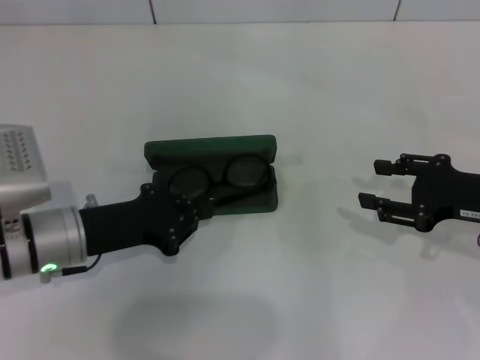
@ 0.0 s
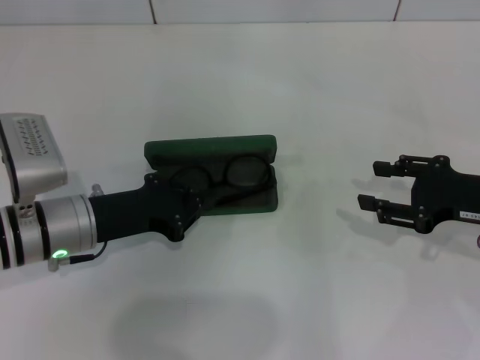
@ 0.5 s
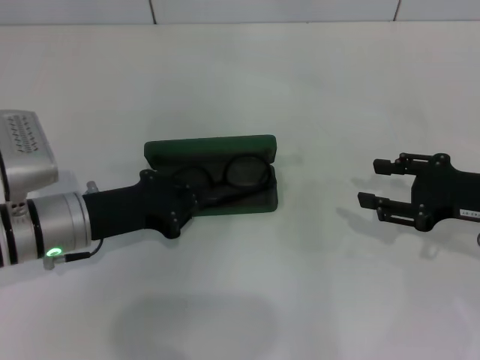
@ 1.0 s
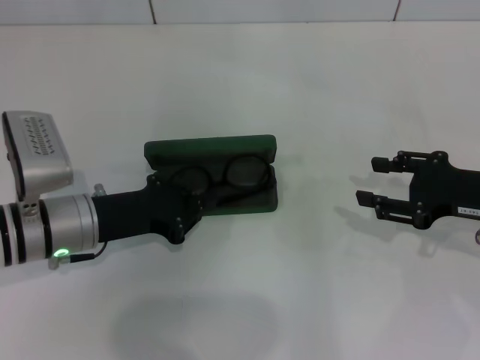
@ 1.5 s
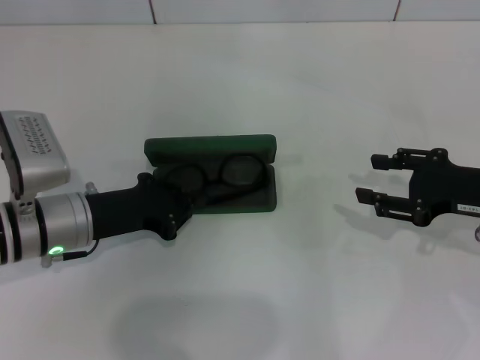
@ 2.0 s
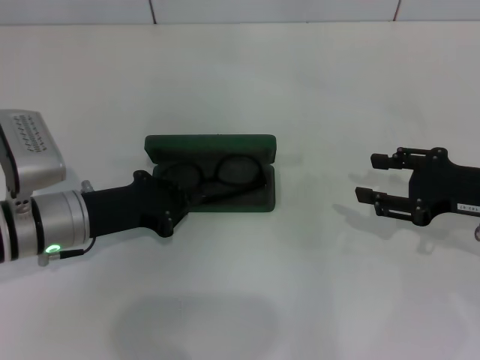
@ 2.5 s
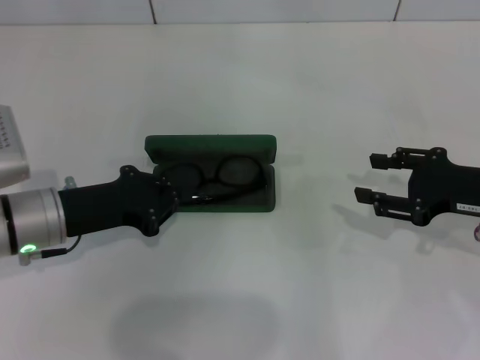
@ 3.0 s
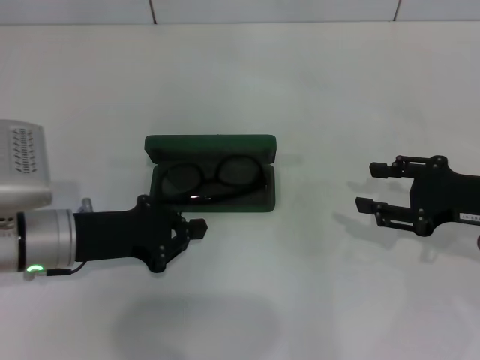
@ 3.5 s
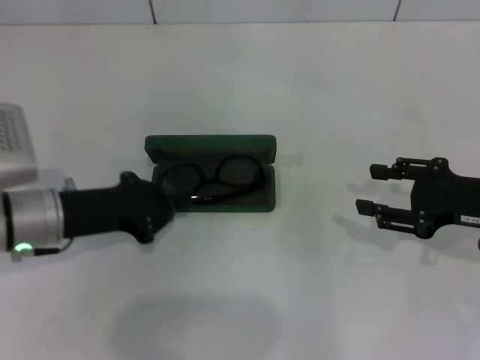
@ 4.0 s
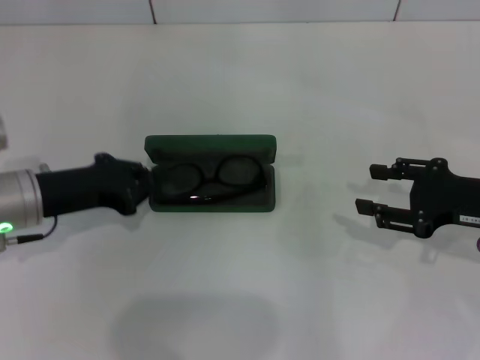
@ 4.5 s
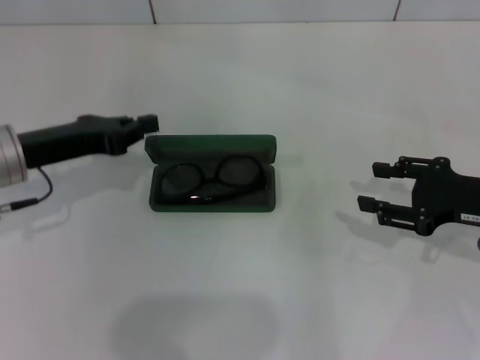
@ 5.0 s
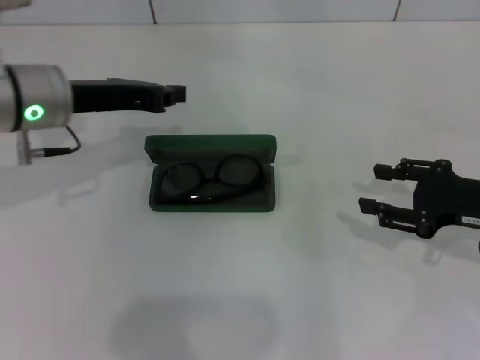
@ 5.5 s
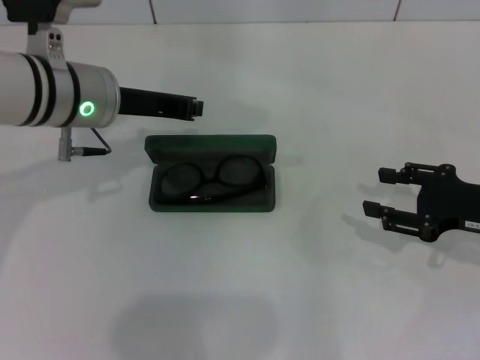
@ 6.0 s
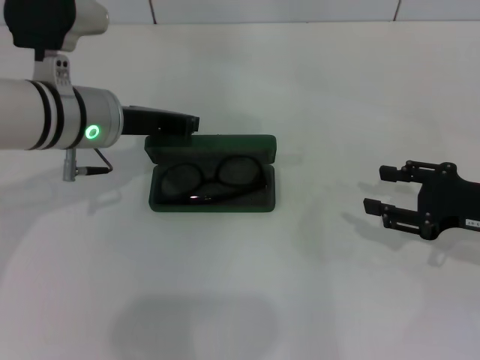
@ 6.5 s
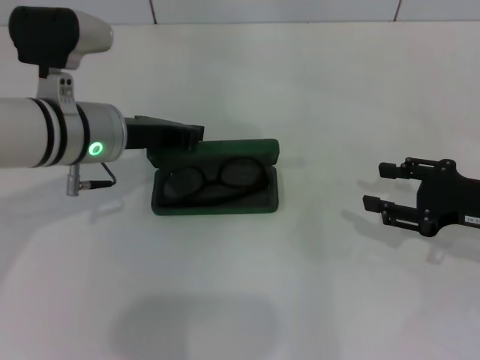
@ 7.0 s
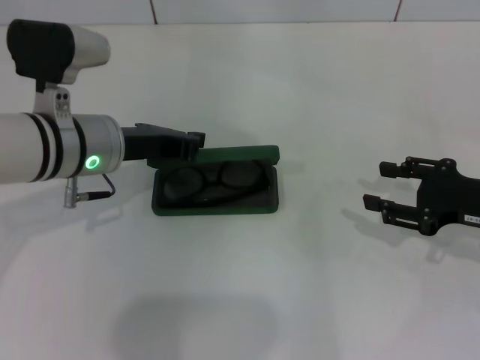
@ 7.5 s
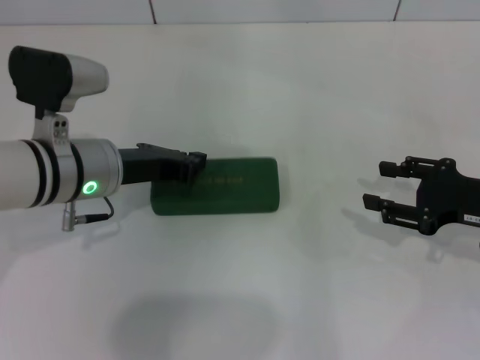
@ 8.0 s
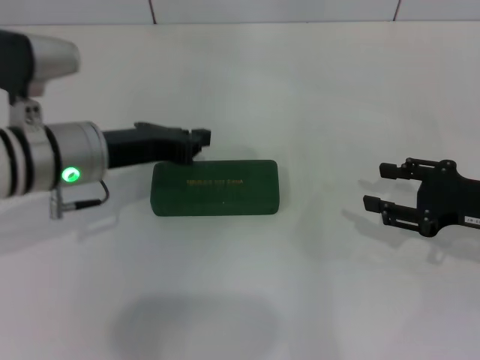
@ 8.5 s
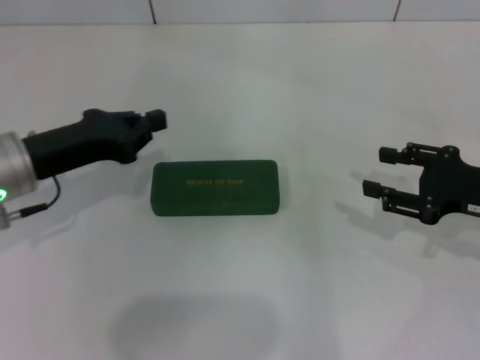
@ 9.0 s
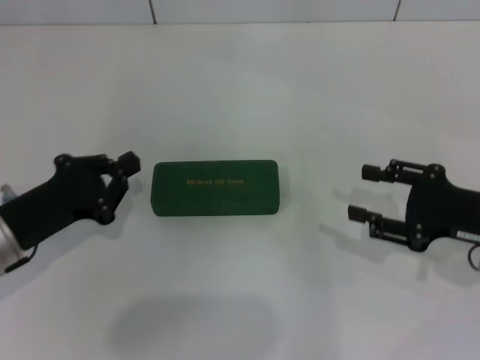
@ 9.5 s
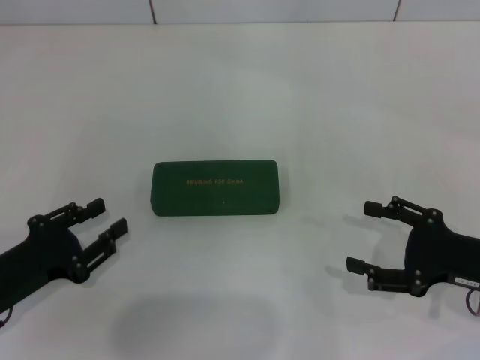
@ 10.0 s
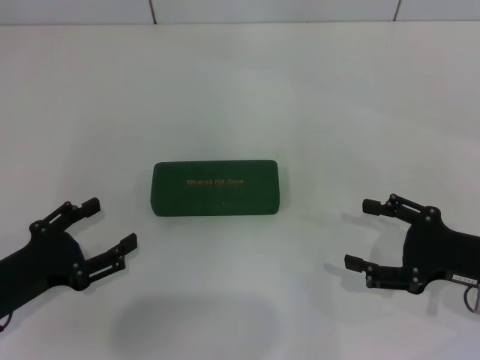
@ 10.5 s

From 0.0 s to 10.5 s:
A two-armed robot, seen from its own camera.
Step, from 0.0 s to 8.0 s: Close the glasses case with your left hand.
From 0.0 s to 4.0 s: There are only small adjustments of the grippers.
From 4.0 s to 6.5 s: The left gripper goes some 10 cm upward, to the right and forward.
From 6.5 s to 8.5 s: The grippers move only a little.
From 8.5 s to 10.5 s: The left gripper goes roughly 20 cm backward, to the left and downward, and opens up, while the right gripper ends up roughly 5 cm from where it was.

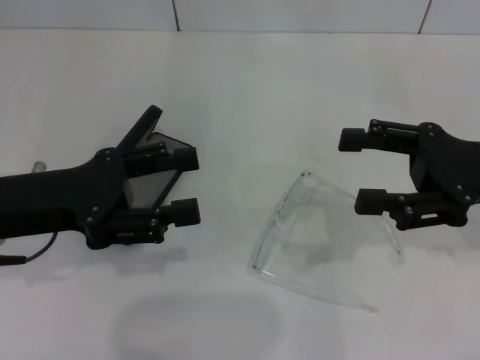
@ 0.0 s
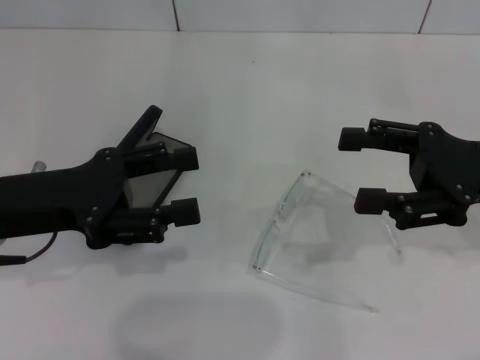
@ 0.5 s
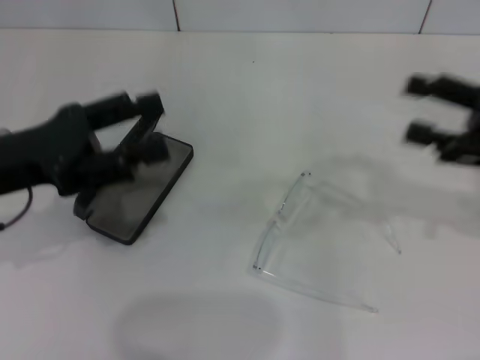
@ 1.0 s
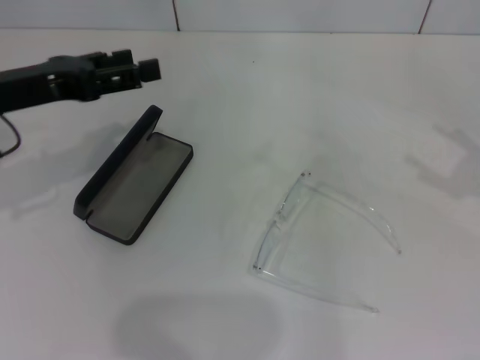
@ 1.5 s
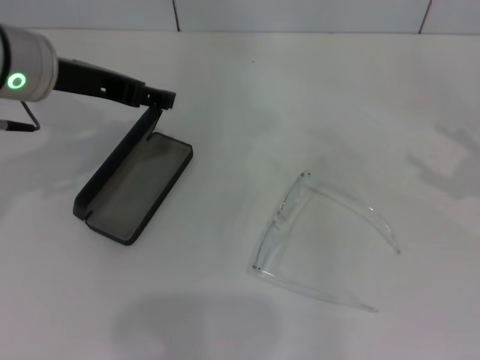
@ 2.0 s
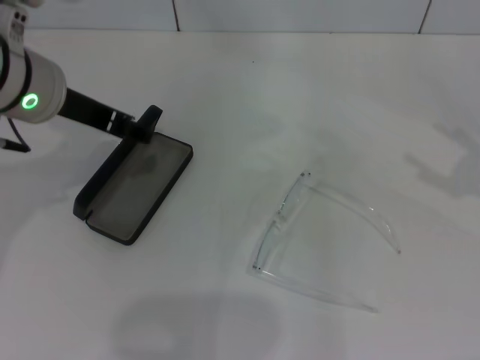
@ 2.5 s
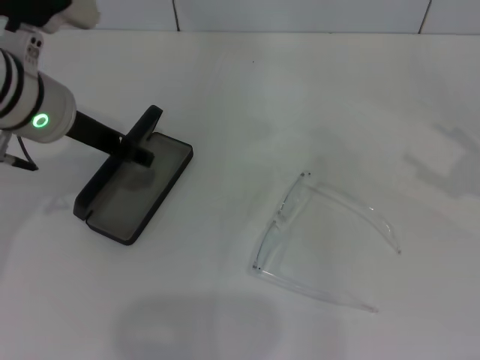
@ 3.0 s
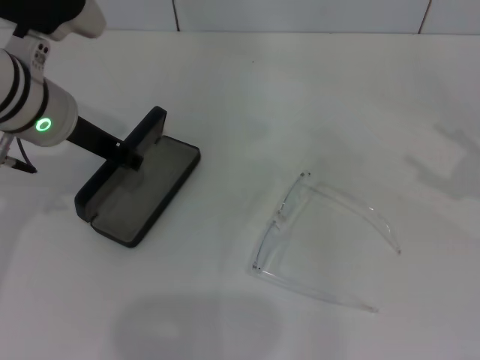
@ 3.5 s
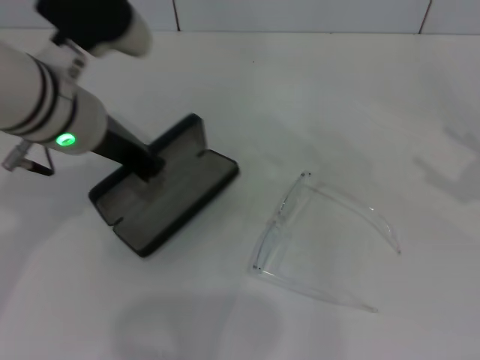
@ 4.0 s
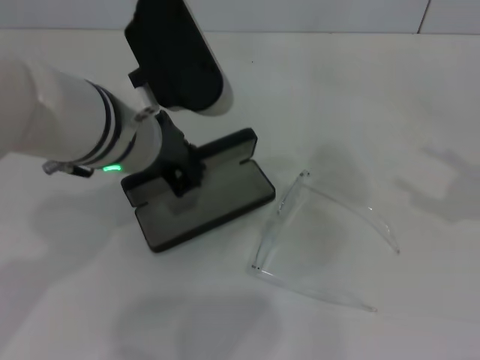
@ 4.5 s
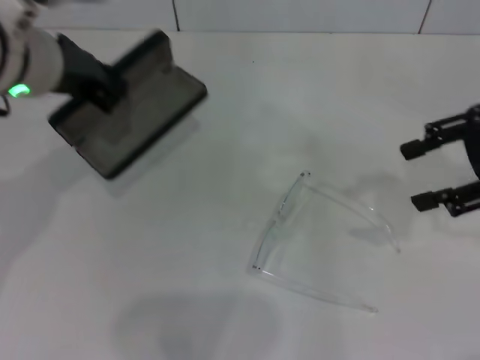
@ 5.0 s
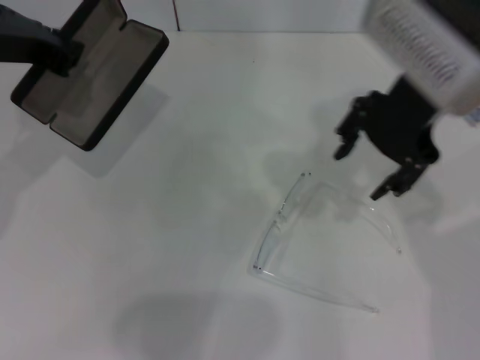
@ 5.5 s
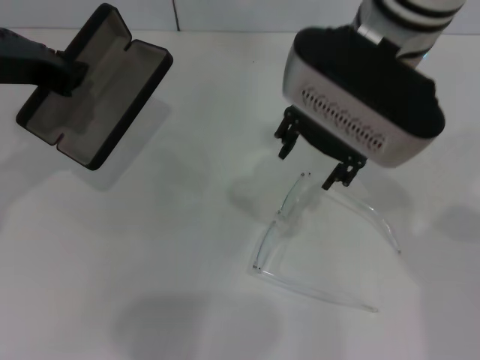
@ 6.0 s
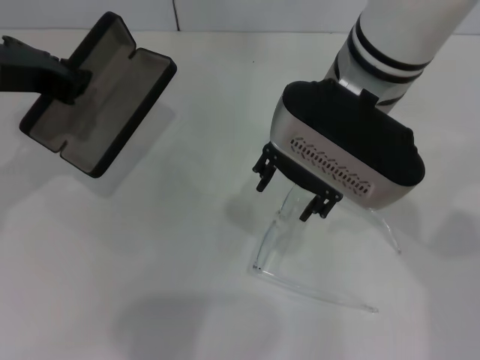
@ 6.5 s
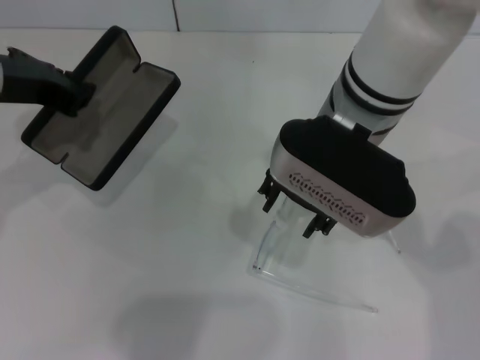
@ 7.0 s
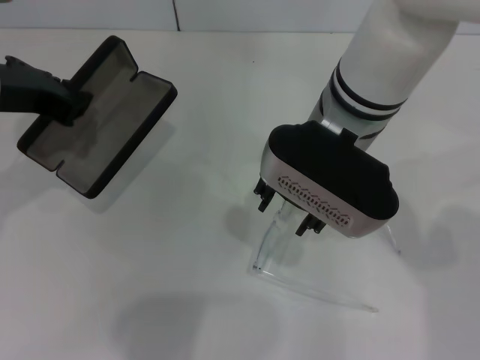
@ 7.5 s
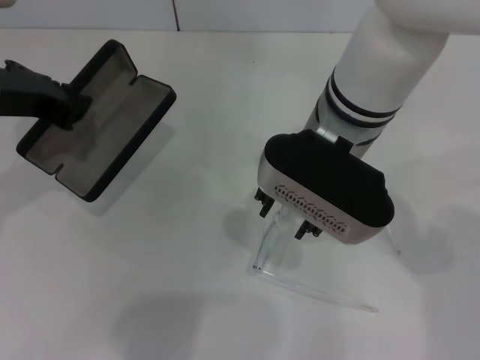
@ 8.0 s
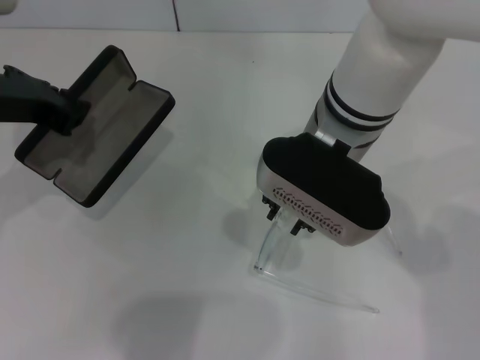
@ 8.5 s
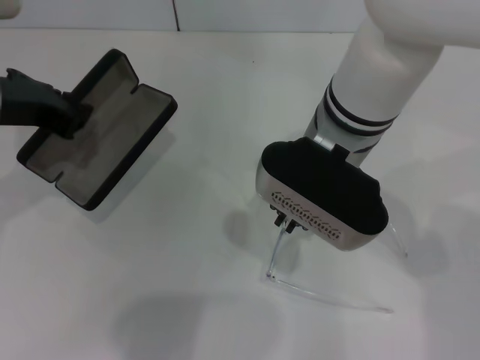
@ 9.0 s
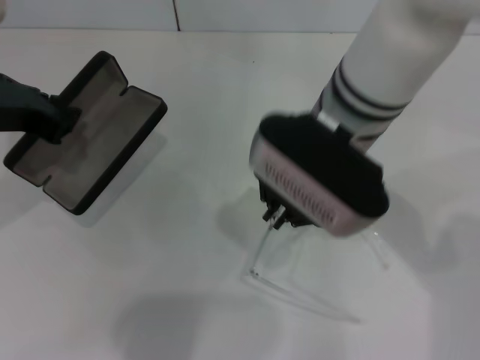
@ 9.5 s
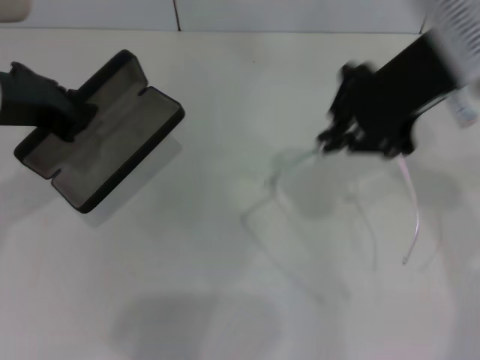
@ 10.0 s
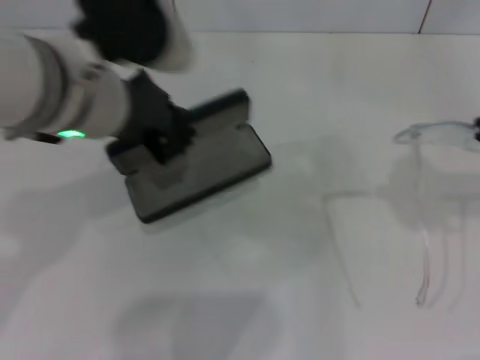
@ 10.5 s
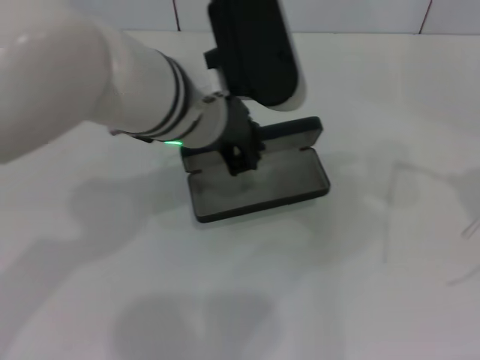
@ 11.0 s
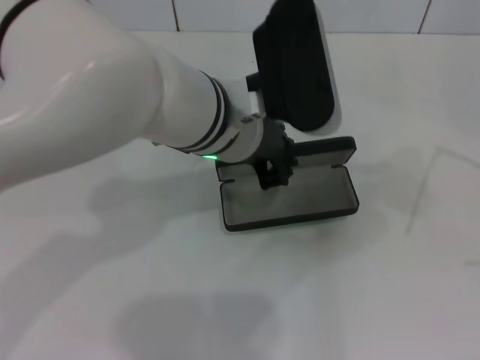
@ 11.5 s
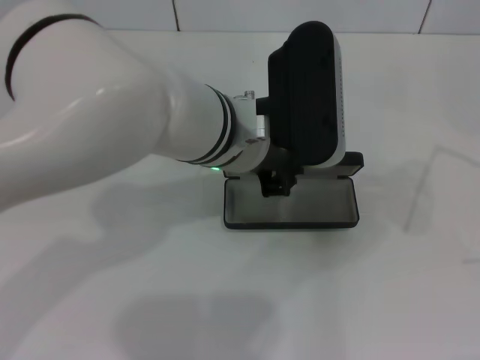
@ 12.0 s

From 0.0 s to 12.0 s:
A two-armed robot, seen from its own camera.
Step, from 0.0 s to 3.5 s: Grab the glasses case with your left hand.
Step, from 4.0 s to 8.5 s: Grab the eyeglass frame with your right hand.
From 0.0 s to 2.0 s: The left gripper moves forward and upward, approximately 10 cm; the right gripper shifts roughly 15 cm to the right.
From 2.0 s to 4.0 s: The left gripper moves some 5 cm, and closes up.
From 4.0 s to 6.0 s: The right gripper is displaced to the left by about 30 cm, while the left gripper is displaced to the left by roughly 5 cm.
From 6.0 s to 8.0 s: The right gripper is displaced downward by roughly 10 cm.
From 8.0 s to 10.0 s: The right gripper goes approximately 15 cm to the right and upward, and closes up.
From 10.0 s to 12.0 s: The left gripper heads to the right, covering about 20 cm; the right gripper travels to the right and backward by some 30 cm.

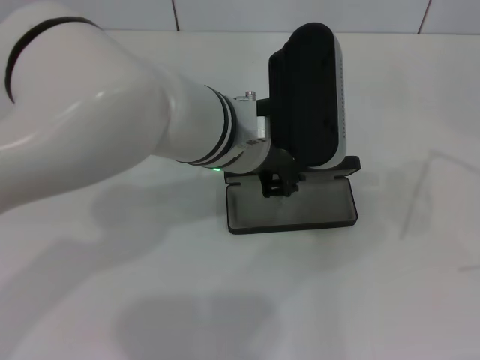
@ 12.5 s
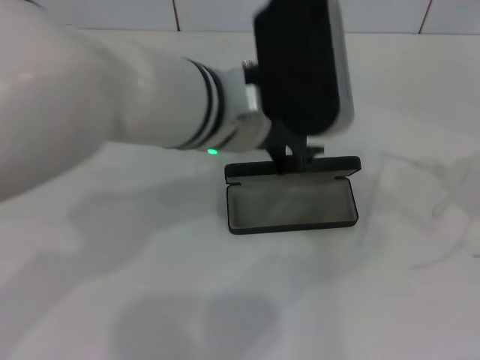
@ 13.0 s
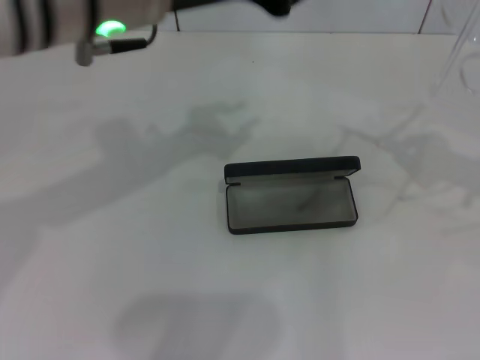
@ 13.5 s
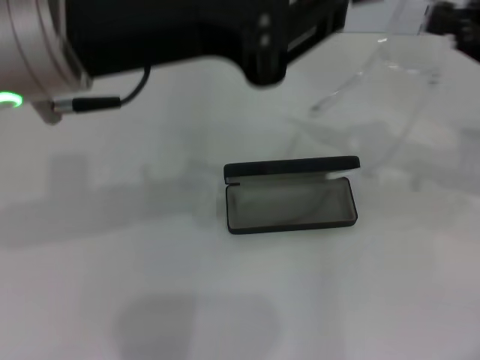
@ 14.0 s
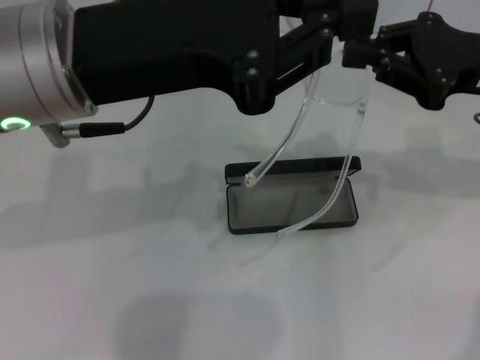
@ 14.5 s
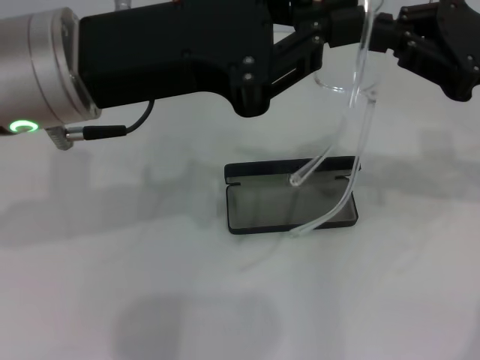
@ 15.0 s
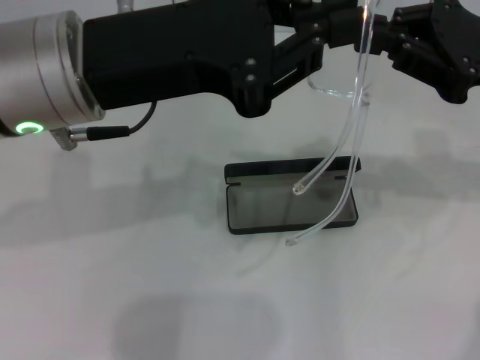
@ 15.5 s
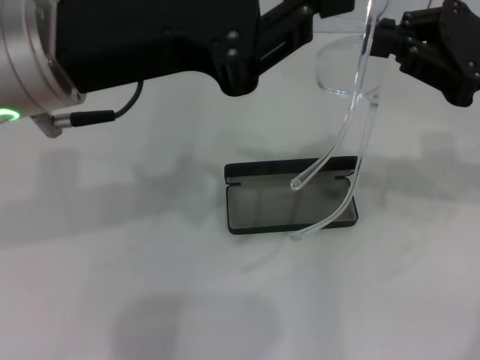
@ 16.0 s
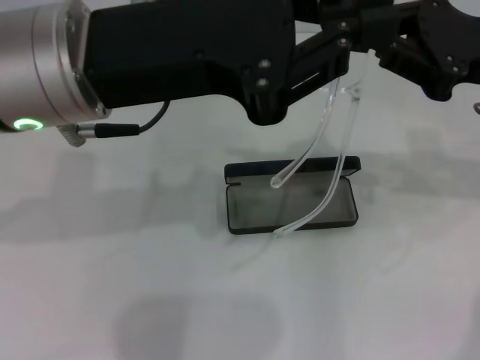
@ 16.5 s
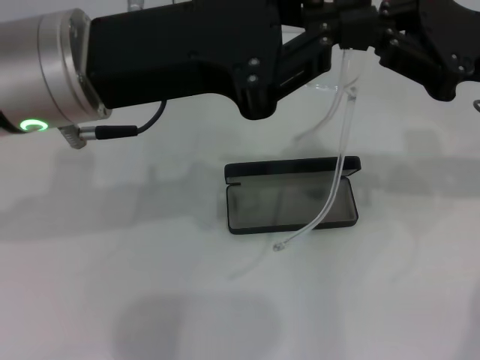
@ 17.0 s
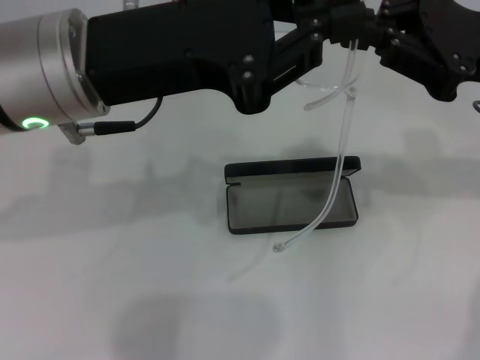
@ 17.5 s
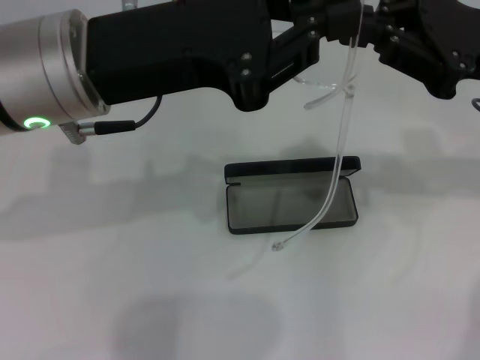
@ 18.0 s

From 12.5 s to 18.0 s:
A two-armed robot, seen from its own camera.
From 12.5 s to 14.5 s: The right gripper travels to the left and forward by some 20 cm; the left gripper is displaced to the left, upward and backward by roughly 15 cm.
From 14.5 s to 18.0 s: The grippers stay close to where they were, moving slightly.
